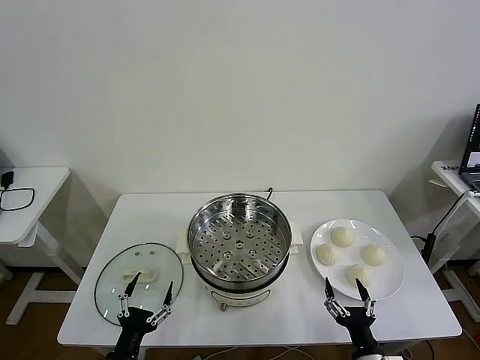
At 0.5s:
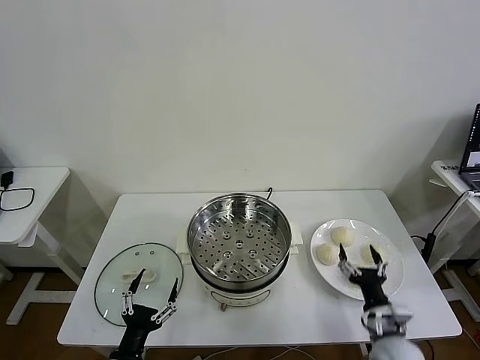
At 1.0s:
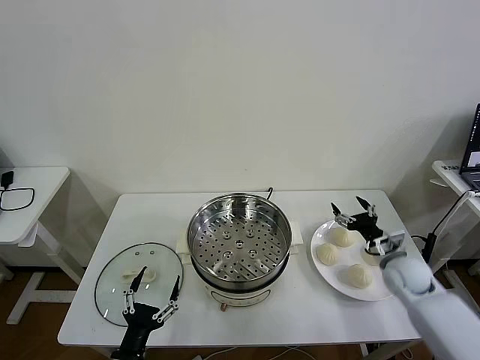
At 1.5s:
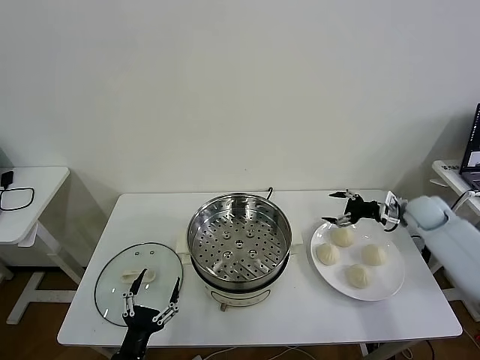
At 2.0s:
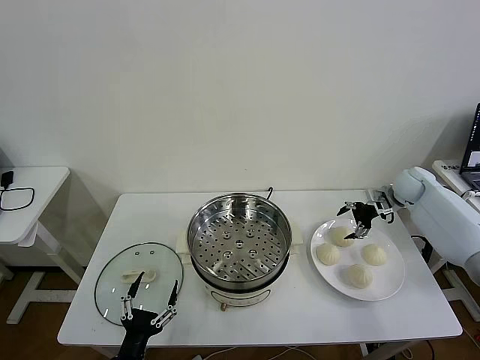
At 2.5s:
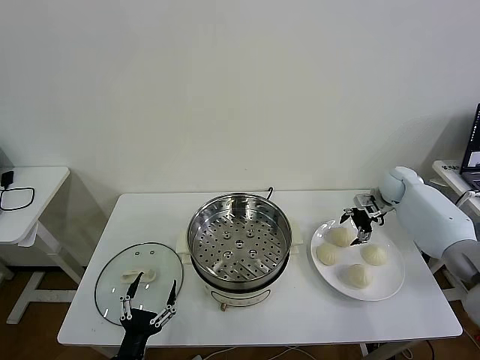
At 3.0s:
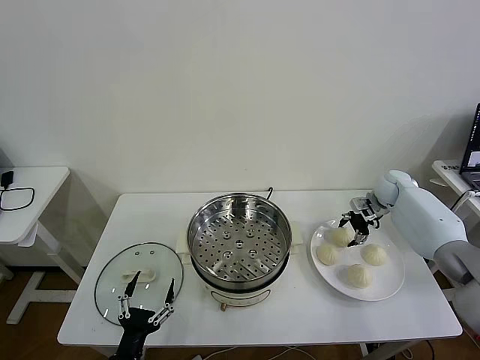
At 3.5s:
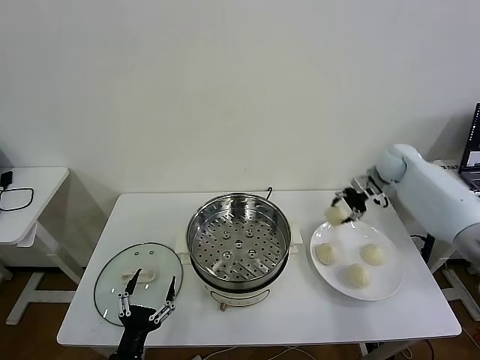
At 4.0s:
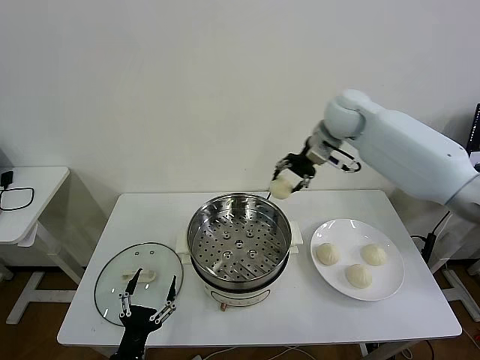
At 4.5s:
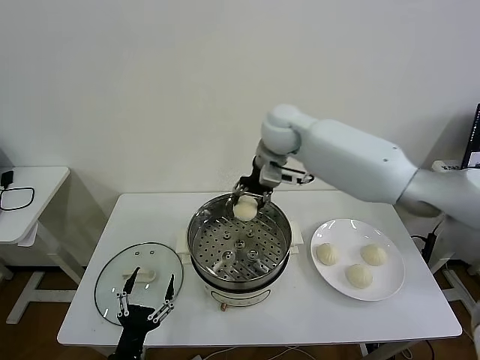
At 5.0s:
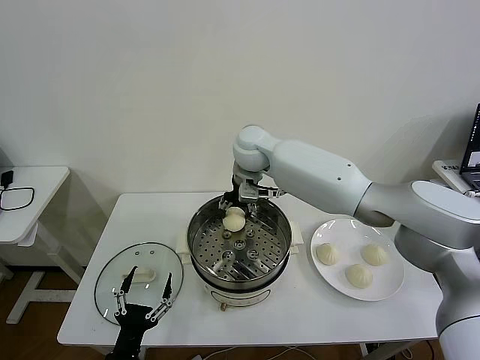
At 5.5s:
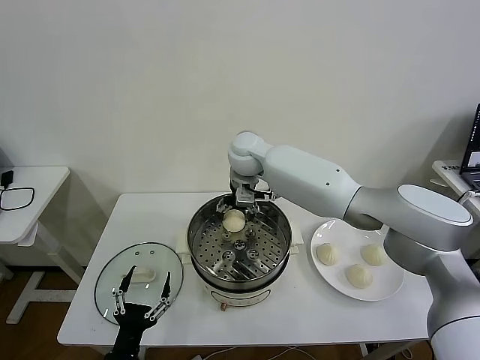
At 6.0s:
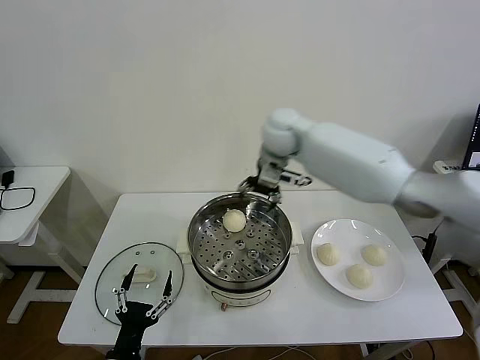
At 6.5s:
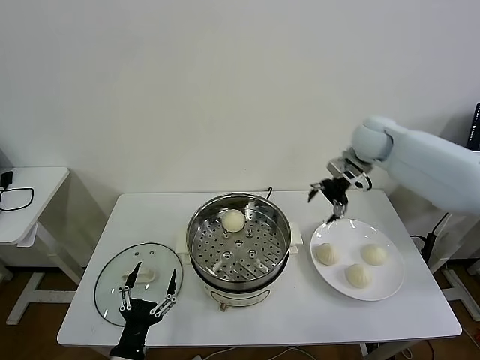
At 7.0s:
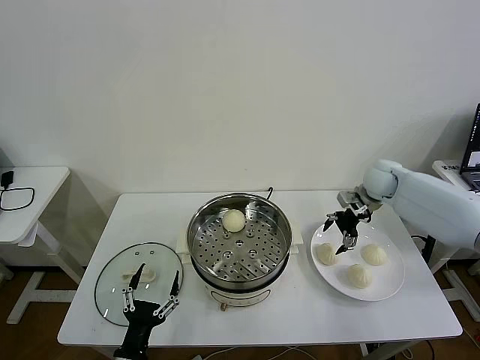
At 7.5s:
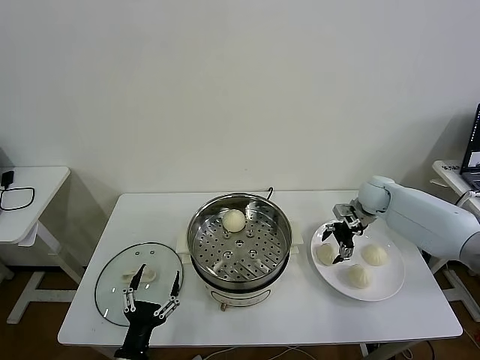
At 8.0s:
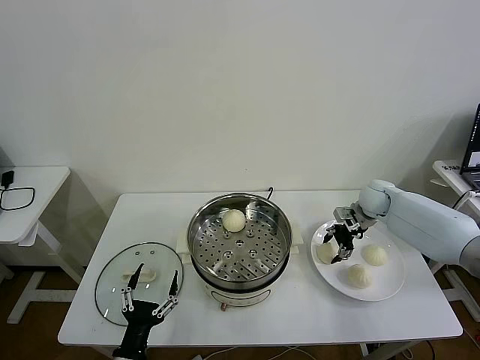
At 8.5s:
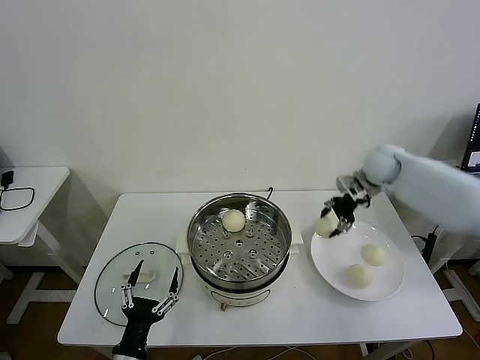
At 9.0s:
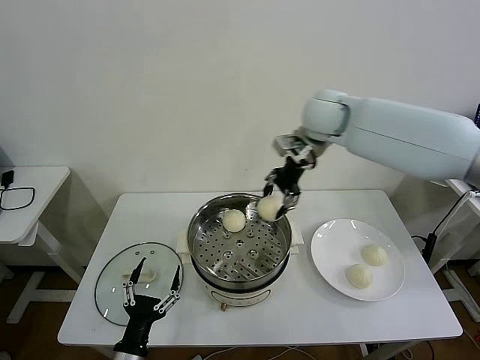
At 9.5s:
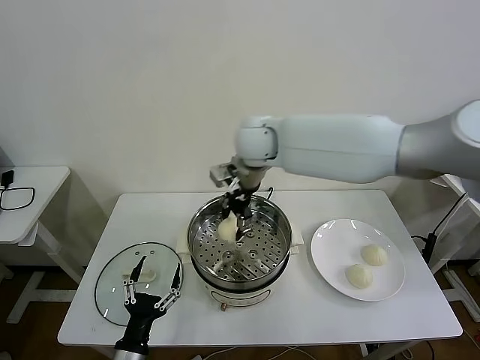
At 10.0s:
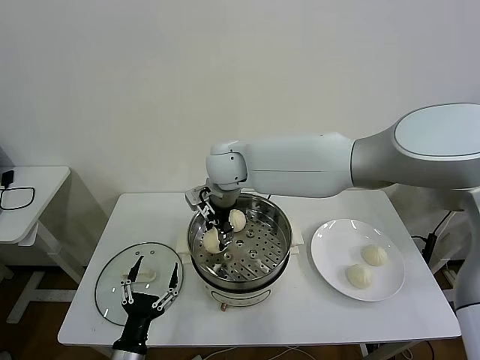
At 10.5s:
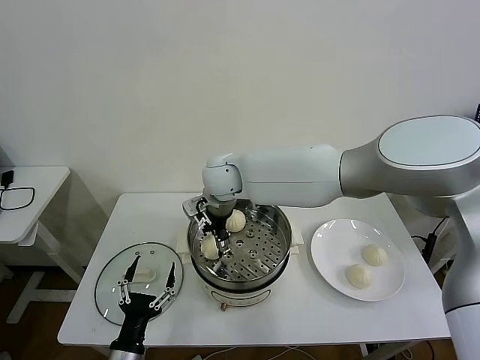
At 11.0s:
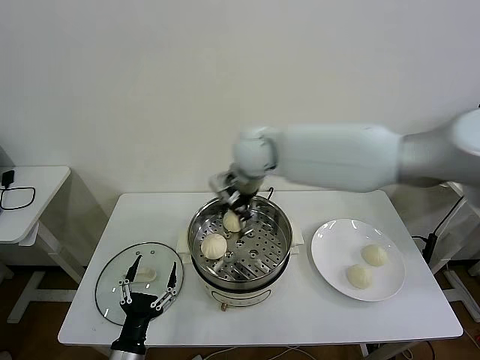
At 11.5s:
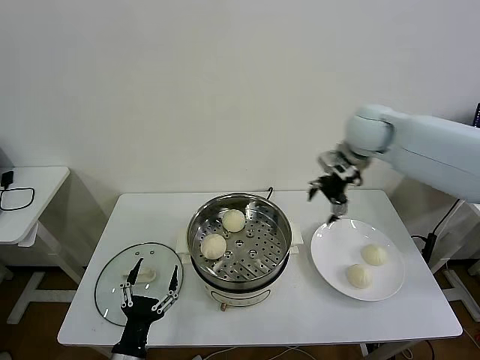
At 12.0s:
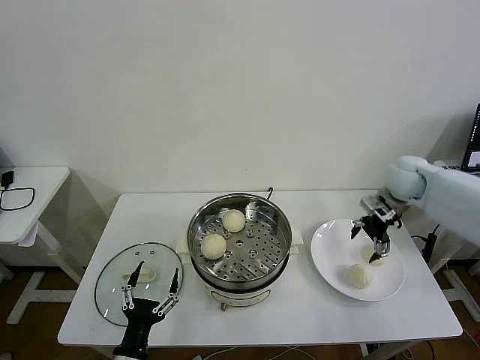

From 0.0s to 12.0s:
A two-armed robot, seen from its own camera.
Task of the whole recording: take steamed baozi put them in steamer then cover it.
Step, from 0.0s to 3.0s: Grasp the baozi in the plate with right gripper.
Step, from 3.5s to 5.5s: Place the baozi on the steamer with right gripper.
Step, from 6.0s to 8.0s: Grasp the baozi in the plate with right gripper.
Step, from 8.5s to 10.5s: Place the baozi on the steamer with right gripper.
From 2.0s to 4.0s: The right gripper is displaced to the left and upward by approximately 35 cm, and closes its fingers.
From 4.0s to 6.0s: The right gripper goes to the left and returns, some 15 cm each way, and opens.
From 6.0s to 8.0s: The right gripper travels to the right and downward by about 30 cm, and closes.
From 8.0s to 10.0s: The right gripper goes about 40 cm to the left.
From 10.0s to 12.0s: The right gripper travels to the right by roughly 40 cm, and opens.

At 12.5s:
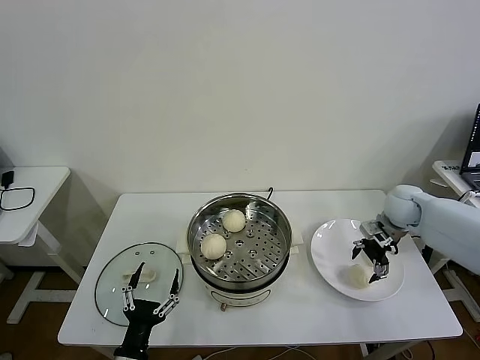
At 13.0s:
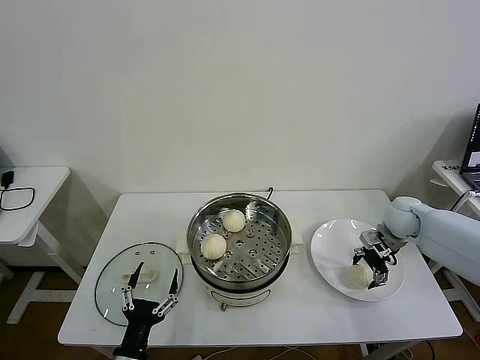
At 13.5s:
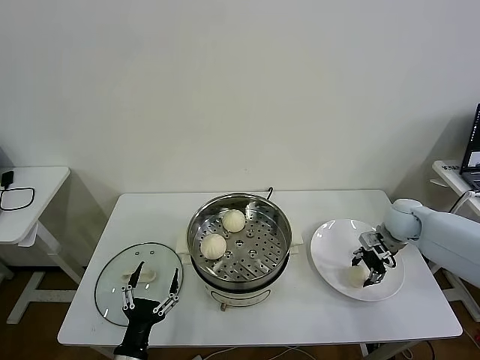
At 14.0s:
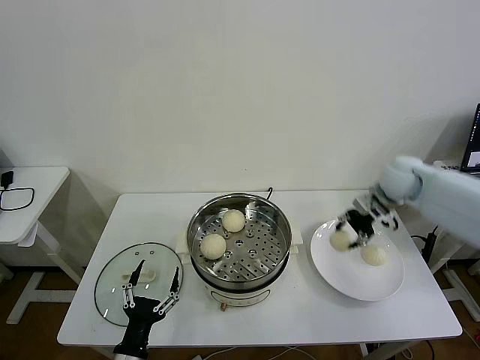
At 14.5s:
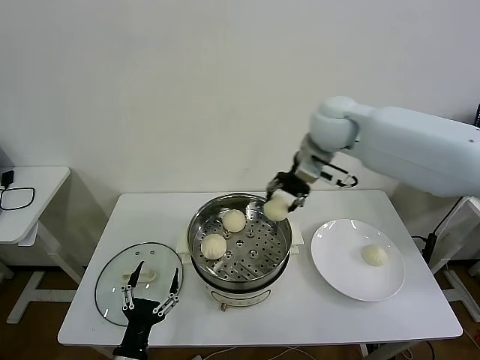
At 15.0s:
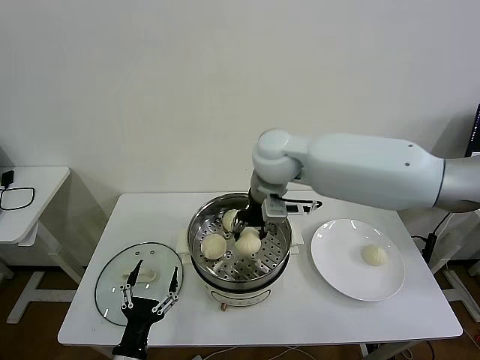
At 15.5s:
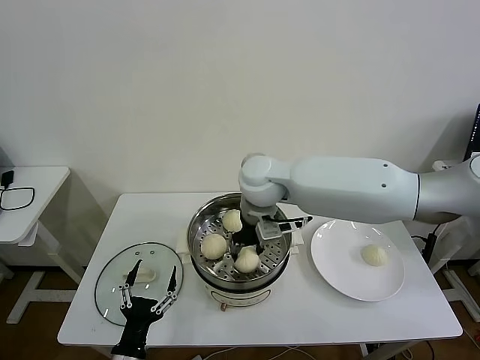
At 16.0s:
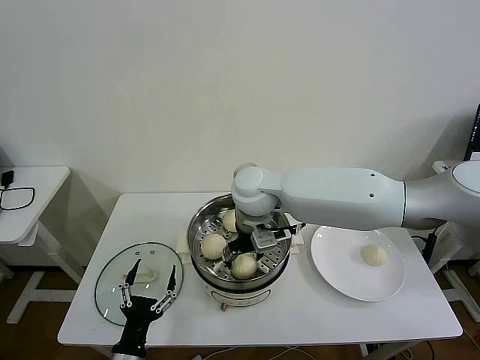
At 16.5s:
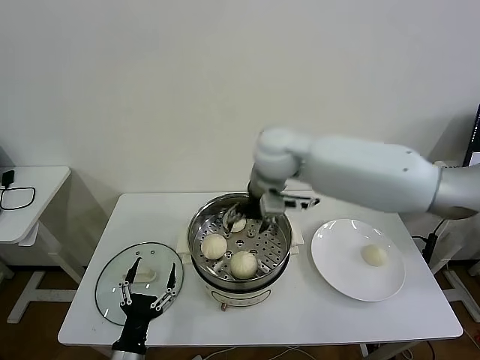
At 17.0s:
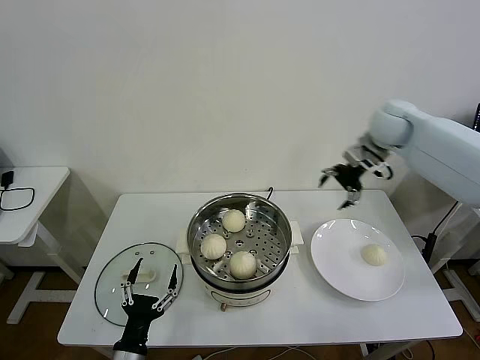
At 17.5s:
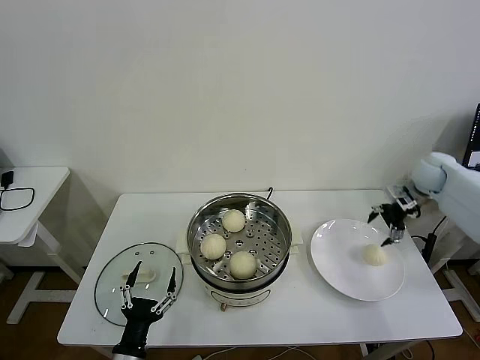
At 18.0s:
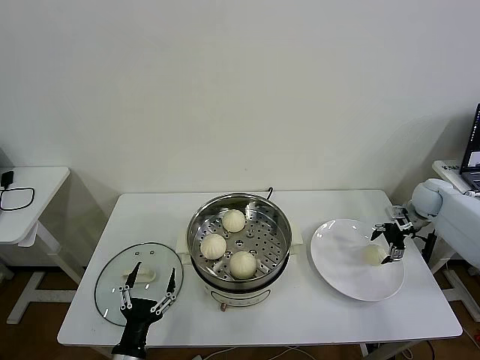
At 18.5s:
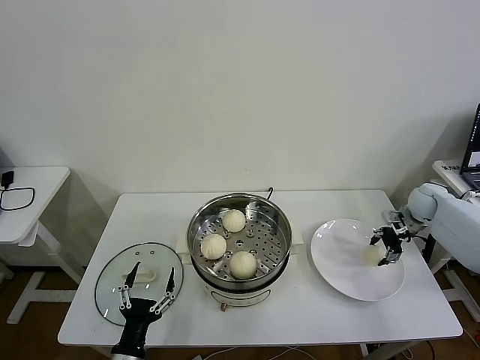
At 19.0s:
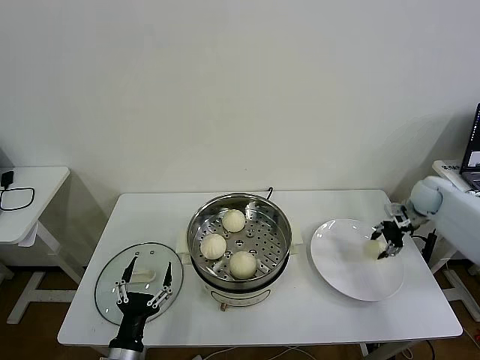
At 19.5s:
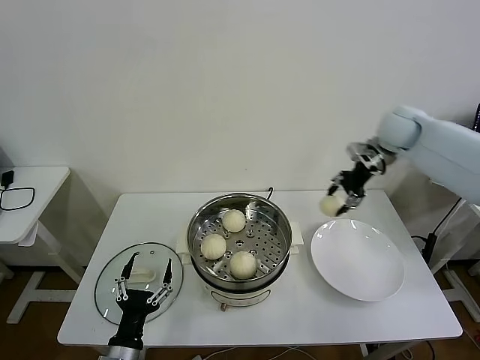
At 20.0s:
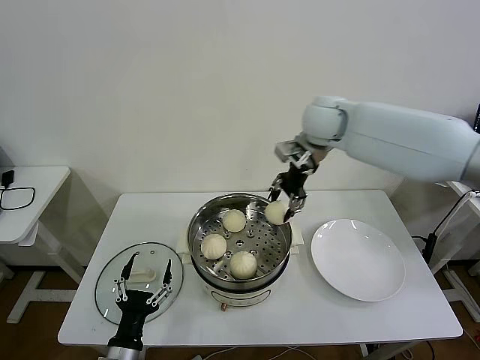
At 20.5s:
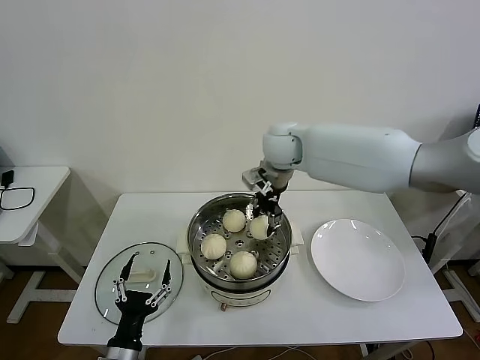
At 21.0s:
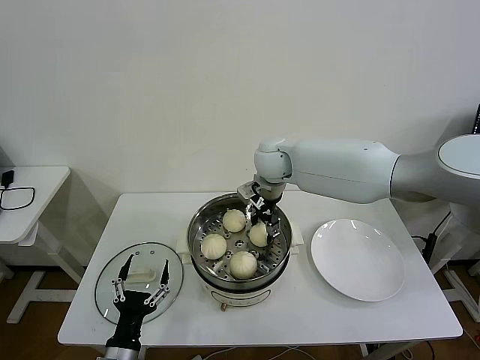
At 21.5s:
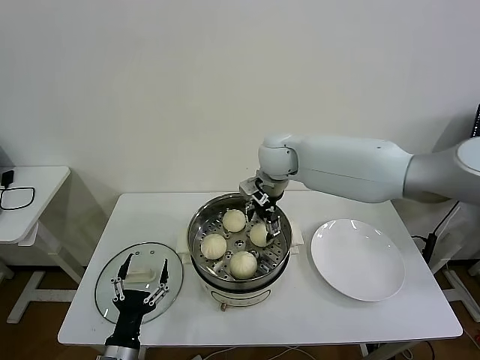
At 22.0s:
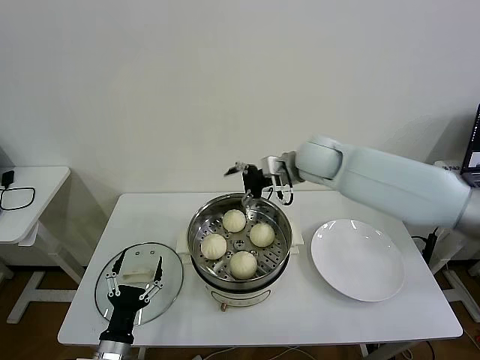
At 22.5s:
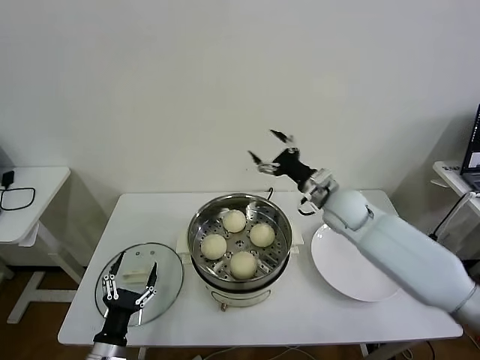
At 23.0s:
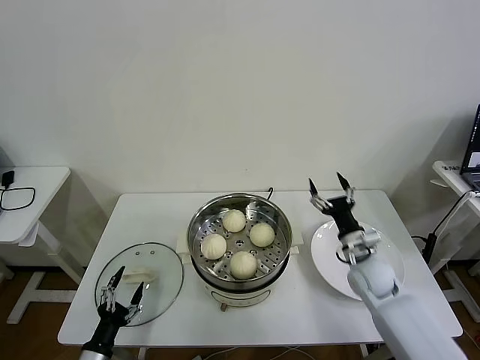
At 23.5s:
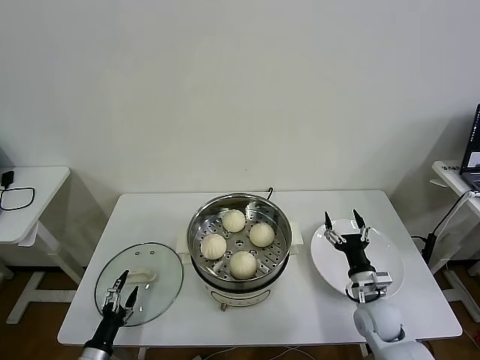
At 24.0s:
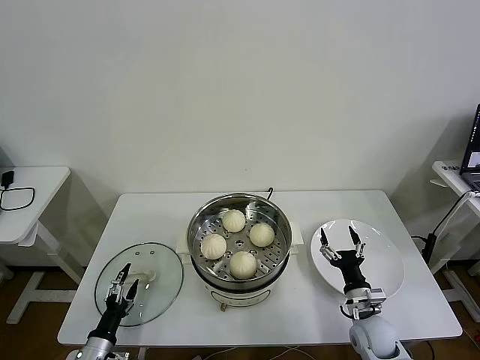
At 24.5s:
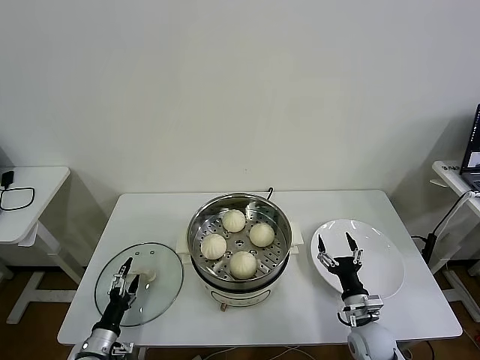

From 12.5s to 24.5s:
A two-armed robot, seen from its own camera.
Task of the whole recording: take steamed baozi put them in steamer then cover it.
Step, from 13.5s to 16.5s: Place the baozi on the steamer with right gripper.
Step, from 17.0s to 18.5s: Grasp the baozi in the plate with right gripper.
Step, from 19.0s to 21.5s: Place the baozi on the steamer with right gripper.
From 12.5s to 14.5s: The right gripper goes approximately 30 cm to the left and upward, and closes up.
From 14.5s to 16.5s: The right gripper moves to the left, approximately 10 cm, and opens up.
From 16.5s to 18.5s: The right gripper goes some 50 cm to the right and downward, and closes.
From 18.5s to 20.5s: The right gripper travels to the left and upward by roughly 40 cm, and closes up.
From 20.5s to 22.5s: The right gripper goes about 20 cm to the right, downward and backward, and opens up; the left gripper moves roughly 5 cm.
From 22.5s to 24.5s: The right gripper goes about 30 cm downward and backward, while the left gripper goes about 10 cm downward and to the left.

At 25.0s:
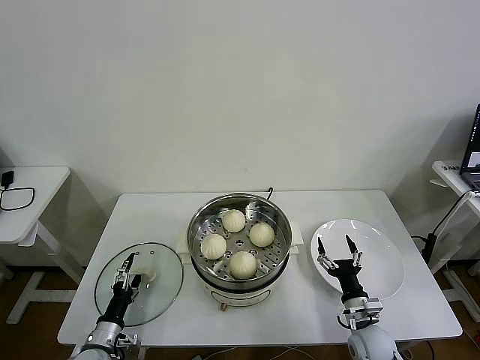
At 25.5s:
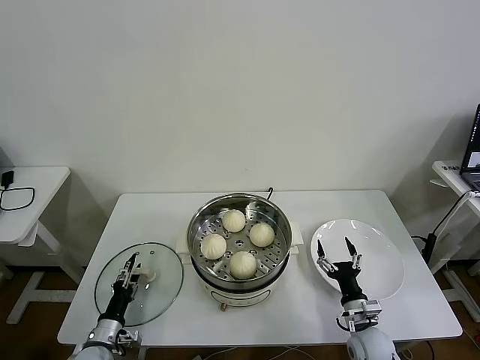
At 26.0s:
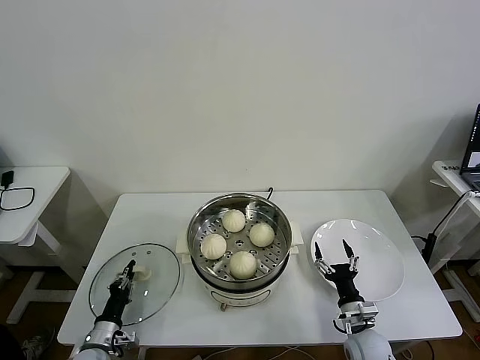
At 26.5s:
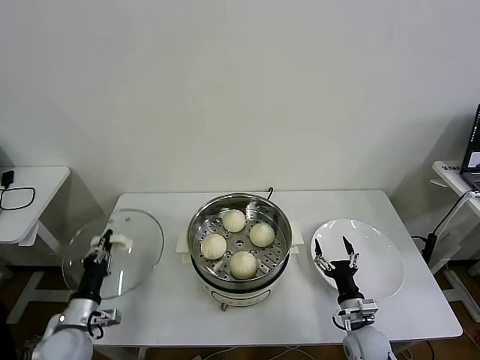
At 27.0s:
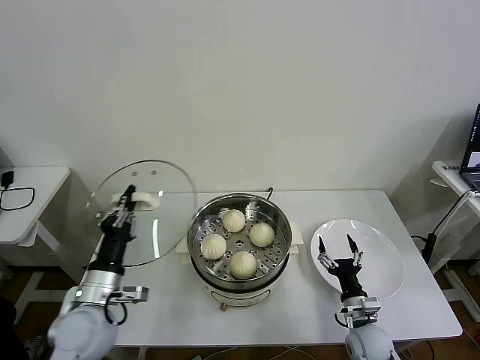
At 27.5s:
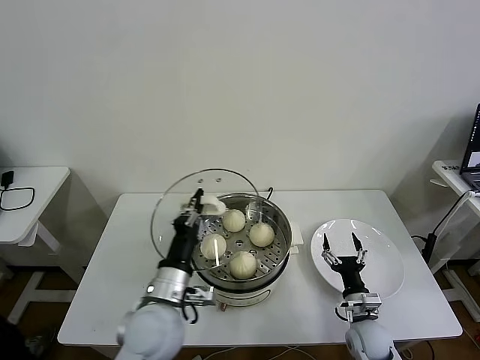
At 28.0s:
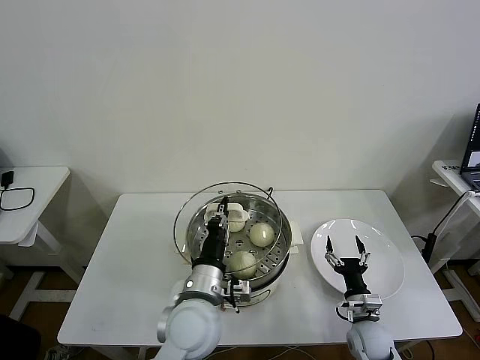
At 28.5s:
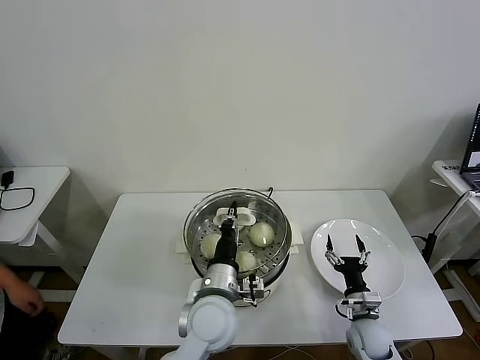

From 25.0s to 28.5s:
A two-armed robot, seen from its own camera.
Task of the whole recording: take steamed baozi put them in steamer then cover it.
From 25.0s to 27.0s: The left gripper travels upward by about 20 cm, and closes.
From 27.0s to 28.5s: The left gripper is displaced to the right by some 25 cm.
